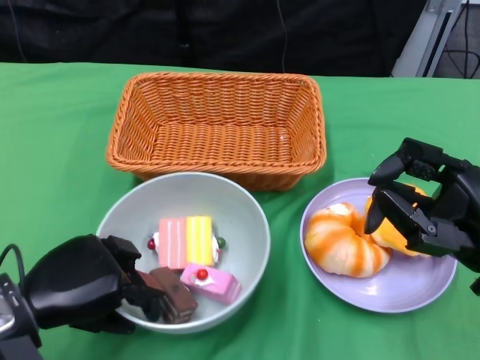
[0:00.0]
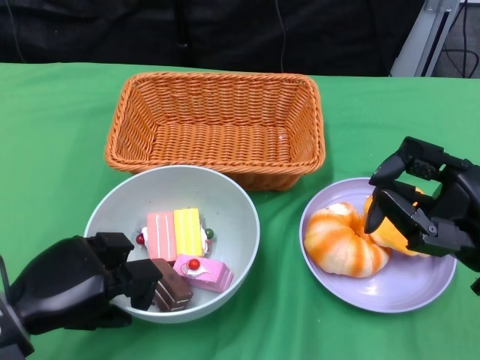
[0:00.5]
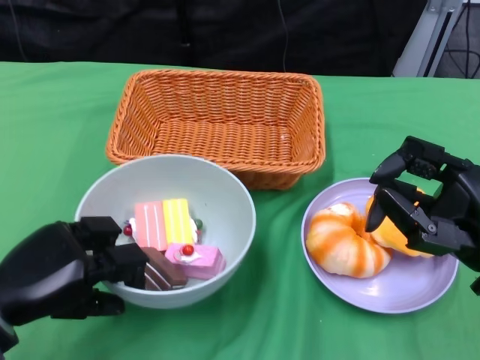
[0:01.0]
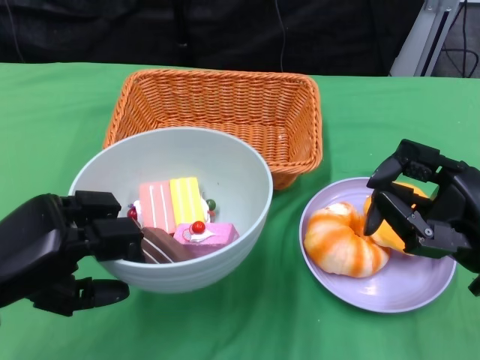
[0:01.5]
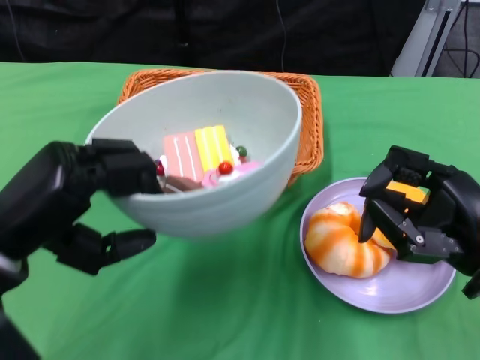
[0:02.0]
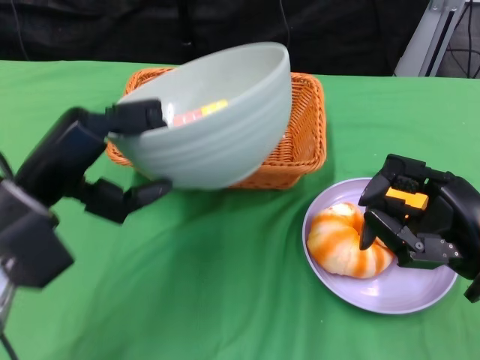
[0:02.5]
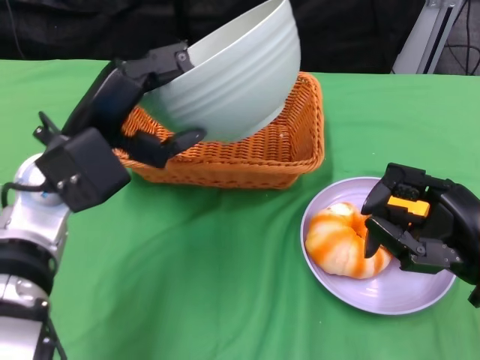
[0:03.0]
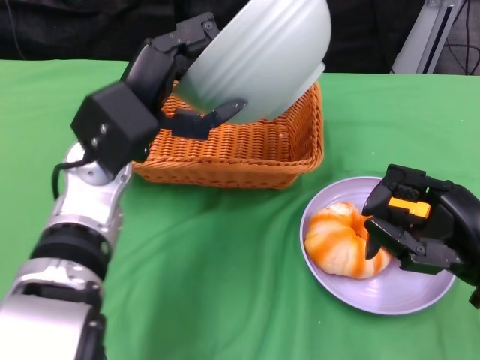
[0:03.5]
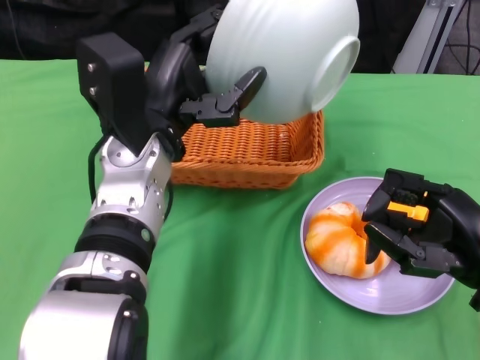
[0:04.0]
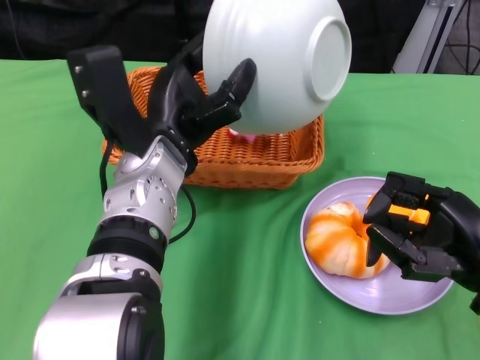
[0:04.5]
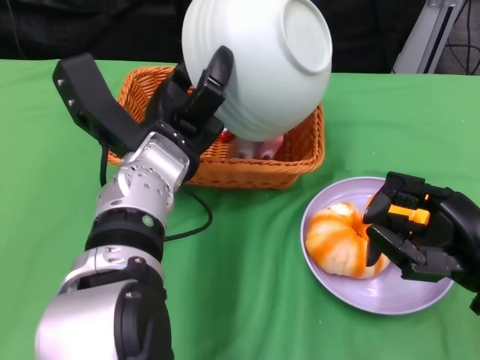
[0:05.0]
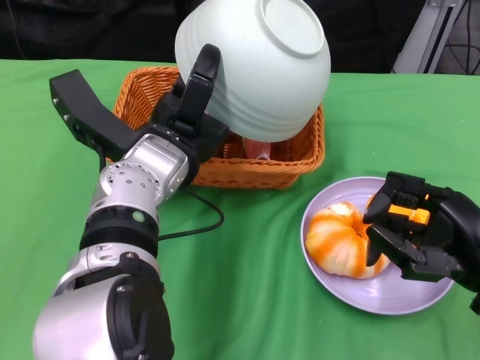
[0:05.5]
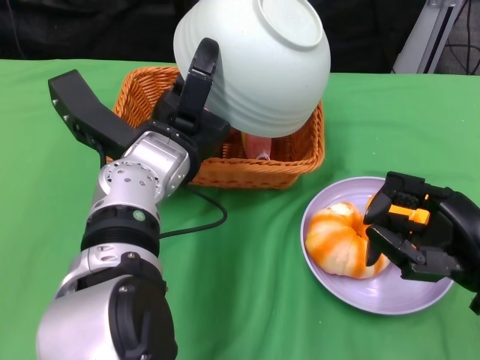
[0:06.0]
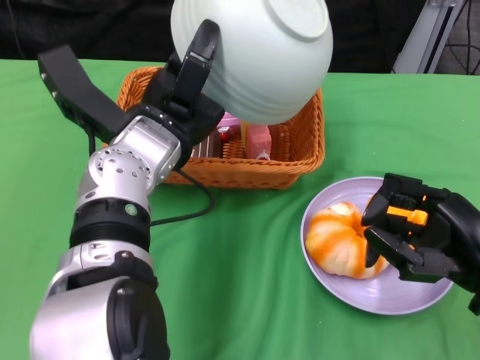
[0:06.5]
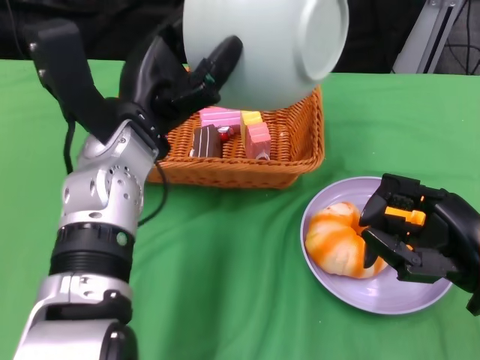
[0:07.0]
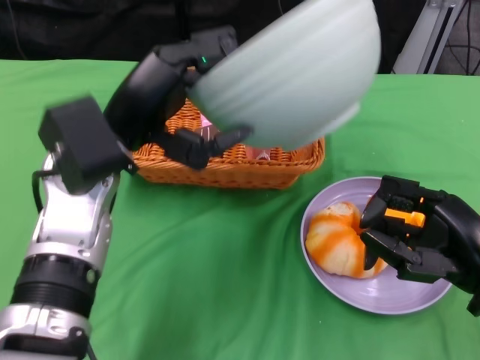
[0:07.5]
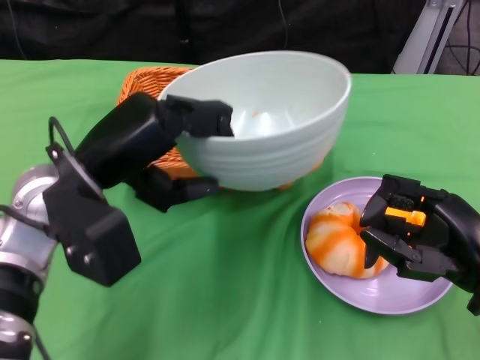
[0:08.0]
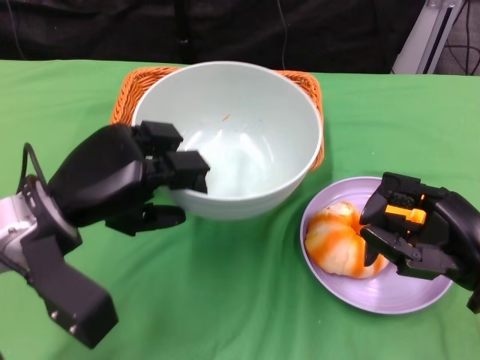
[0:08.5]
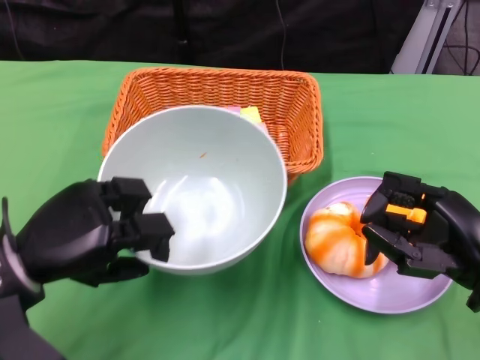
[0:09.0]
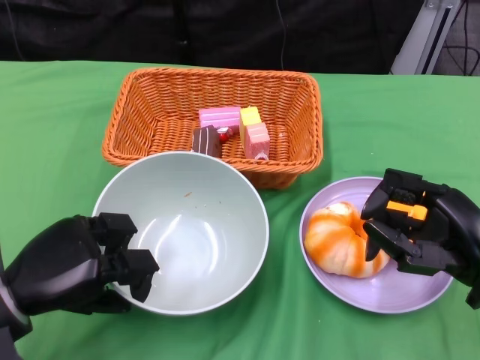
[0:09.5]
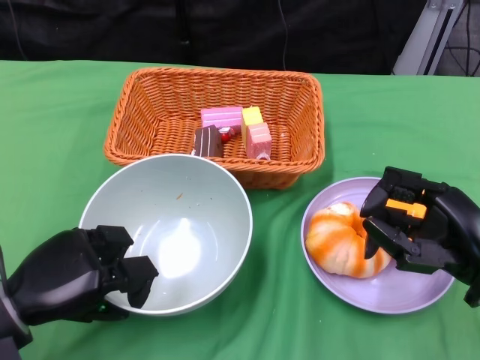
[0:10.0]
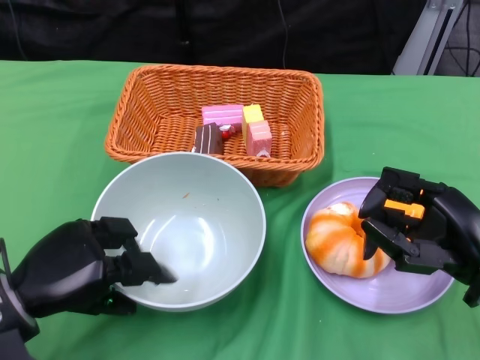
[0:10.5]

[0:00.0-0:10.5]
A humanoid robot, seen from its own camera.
Step, 0:01.0 to 0:06.5: Pour the cake into the basket with the left gripper.
0:00.0 to 0:02.0: The left hand moves upward, some 10 cm.
0:02.0 to 0:04.0: The left hand is displaced to the right and forward by some 15 cm.
0:06.5 to 0:08.5: The left hand travels to the left and backward by about 10 cm.
0:08.5 to 0:10.5: The left hand is displaced downward by approximately 10 cm.

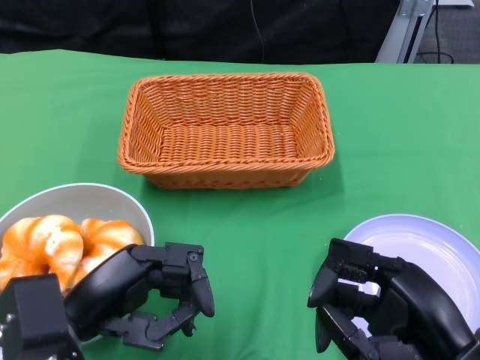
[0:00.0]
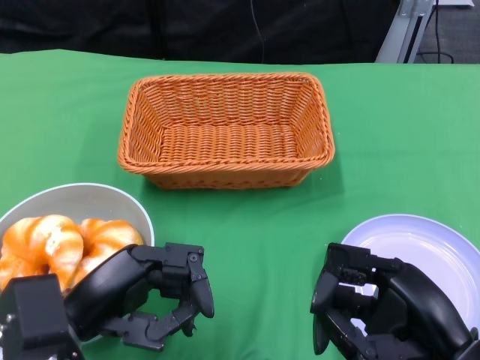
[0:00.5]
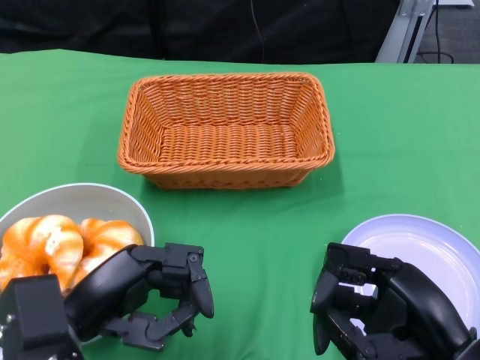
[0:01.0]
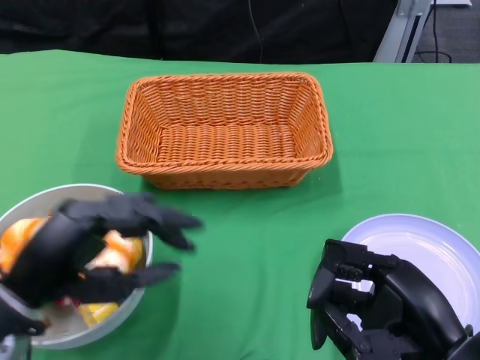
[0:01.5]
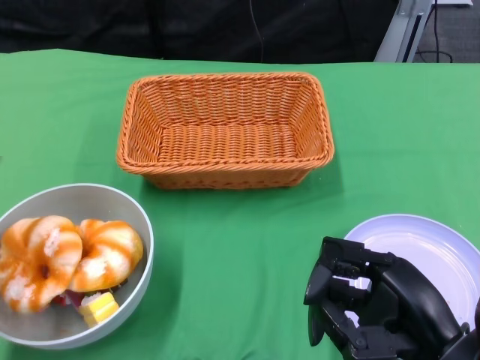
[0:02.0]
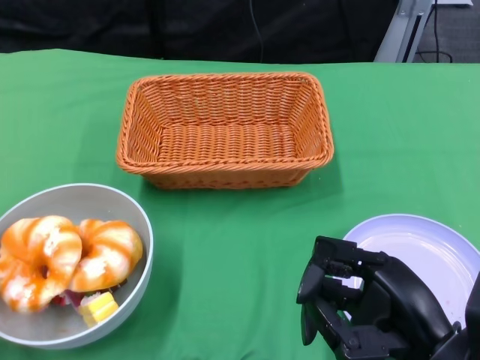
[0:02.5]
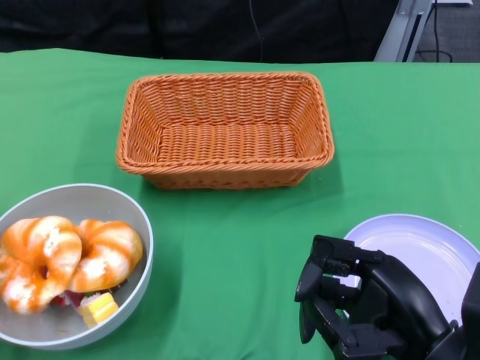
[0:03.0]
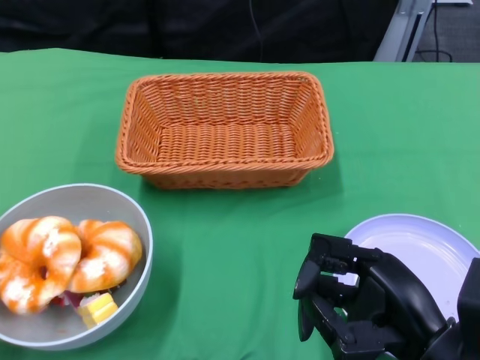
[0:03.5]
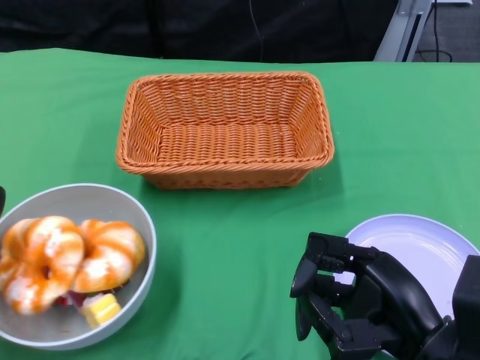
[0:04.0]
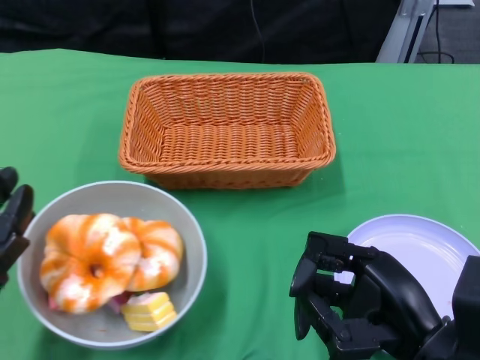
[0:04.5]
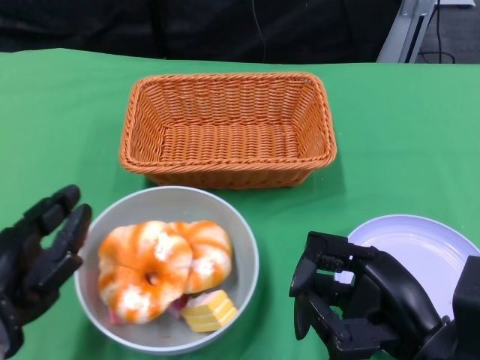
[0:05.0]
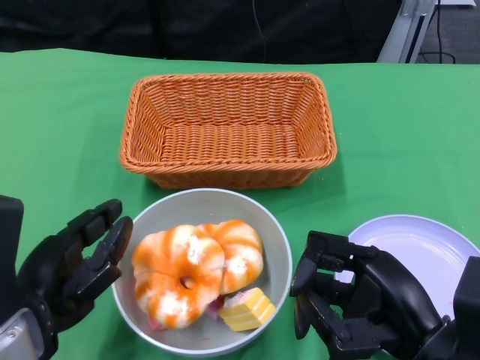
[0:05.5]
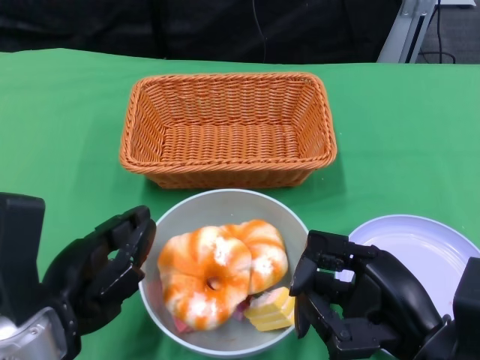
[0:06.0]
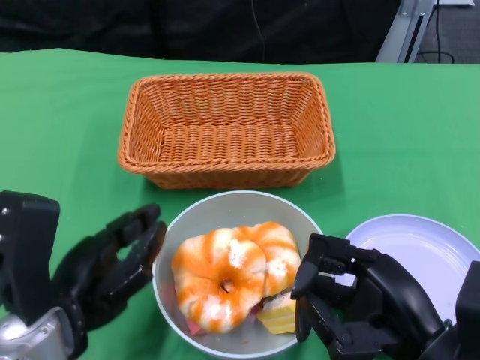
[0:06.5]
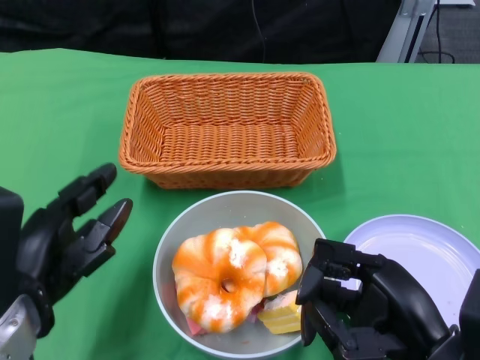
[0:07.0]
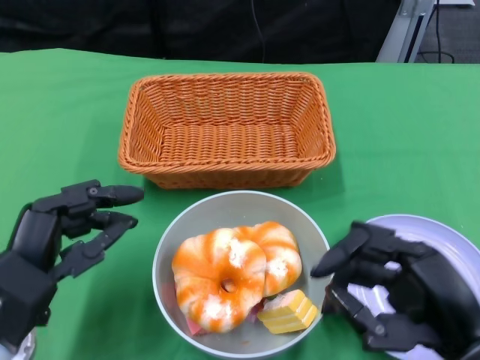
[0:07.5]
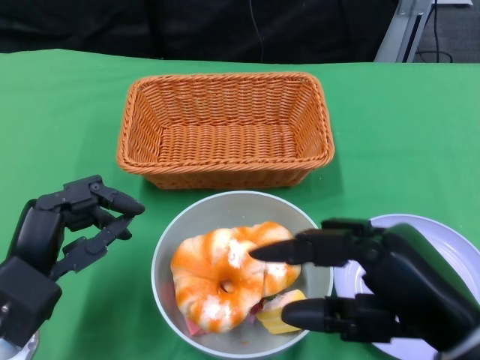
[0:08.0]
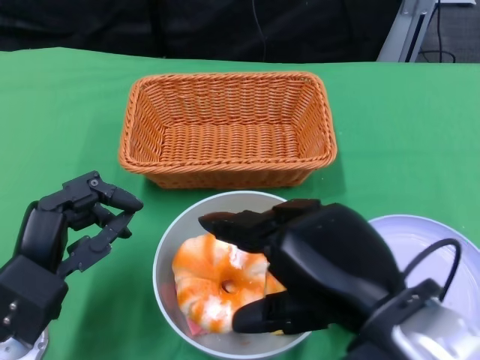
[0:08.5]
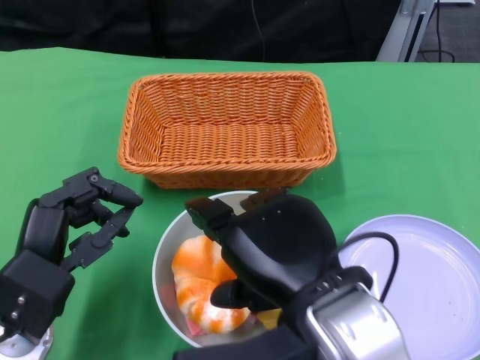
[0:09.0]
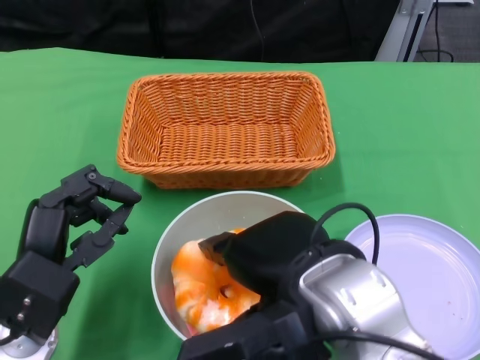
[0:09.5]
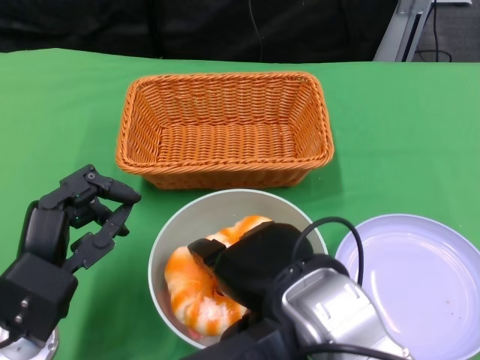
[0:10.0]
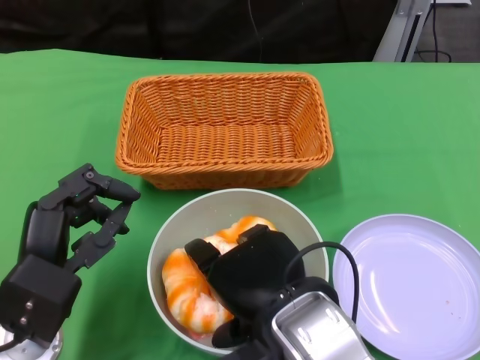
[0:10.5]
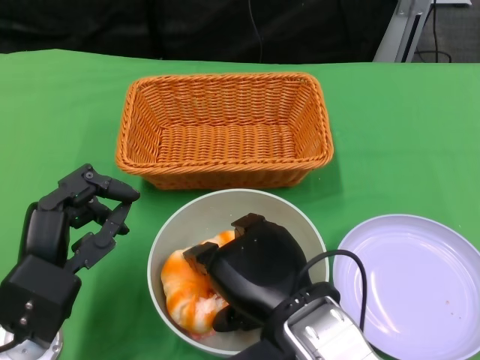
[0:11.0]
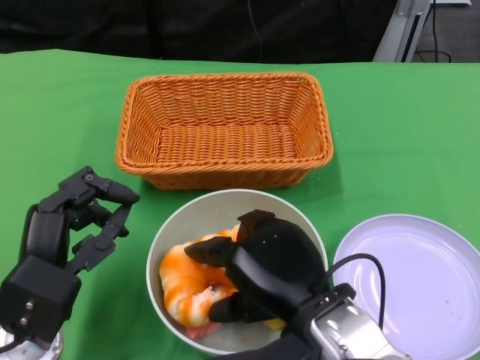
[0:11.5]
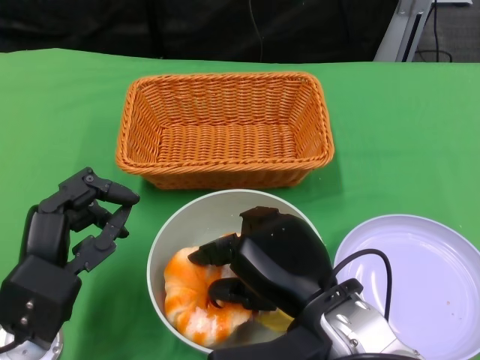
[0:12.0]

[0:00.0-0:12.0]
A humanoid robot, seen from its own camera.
Step, 0:00.0 to 0:06.0: Push the bowl to the center of the table using the left gripper.
0:04.0 to 0:06.0: The left hand shifts approximately 10 cm to the right.
0:06.0 to 0:08.0: The right hand shifts roughly 5 cm upward; the left hand shifts by roughly 5 cm.
0:08.0 to 0:10.0: The right hand is displaced to the left by approximately 10 cm.
0:10.0 to 0:12.0: The right hand is displaced downward by about 5 cm.

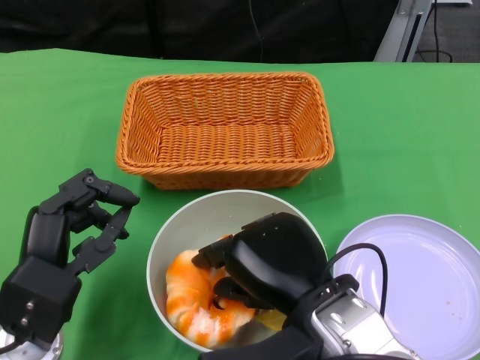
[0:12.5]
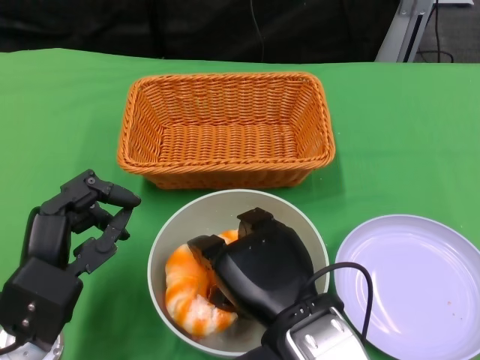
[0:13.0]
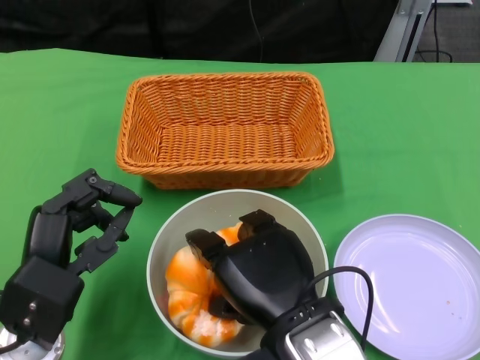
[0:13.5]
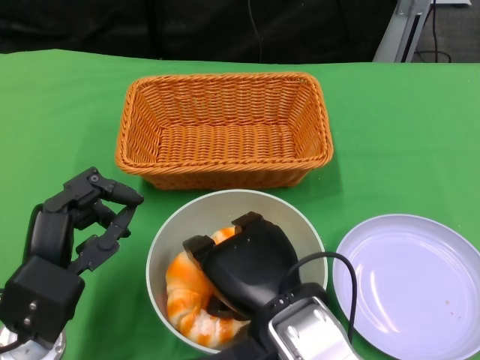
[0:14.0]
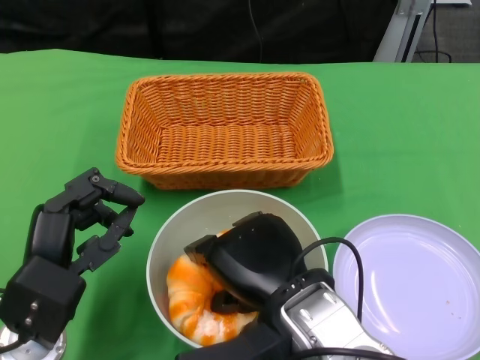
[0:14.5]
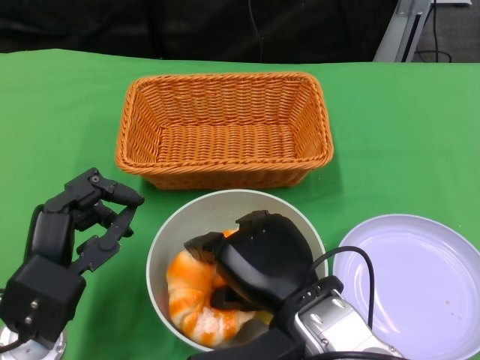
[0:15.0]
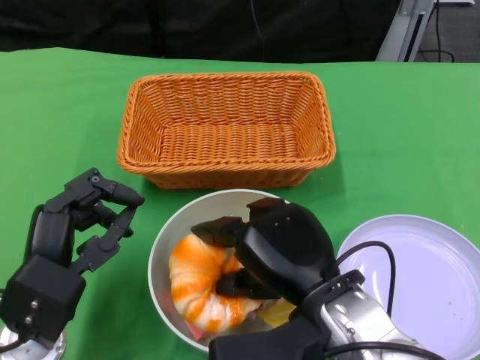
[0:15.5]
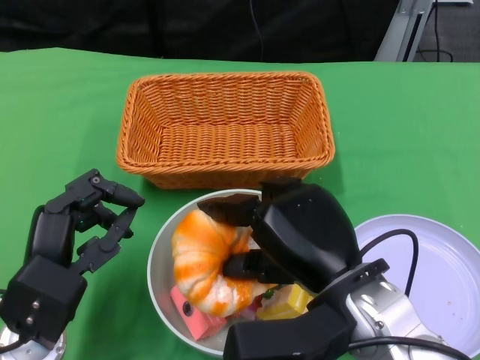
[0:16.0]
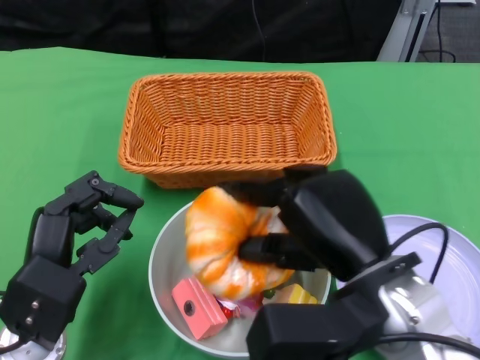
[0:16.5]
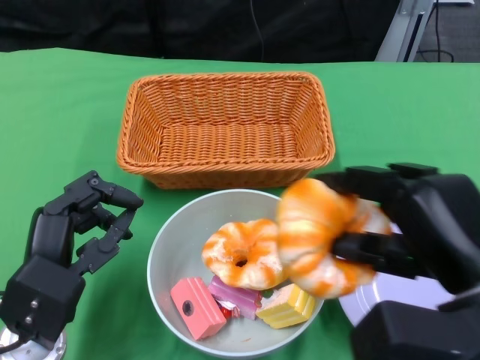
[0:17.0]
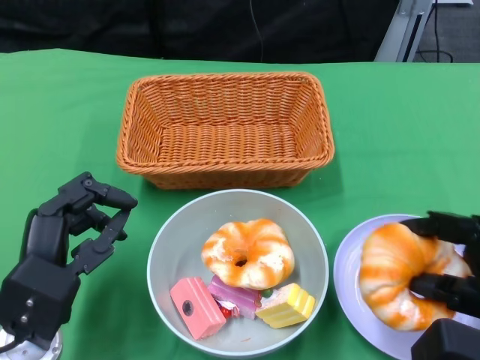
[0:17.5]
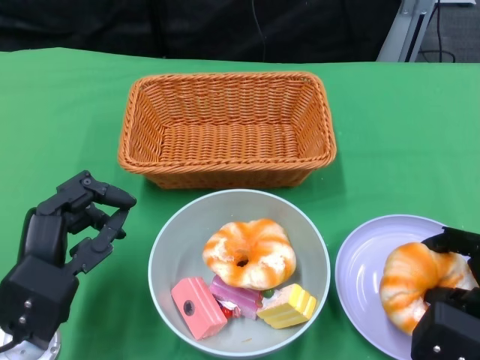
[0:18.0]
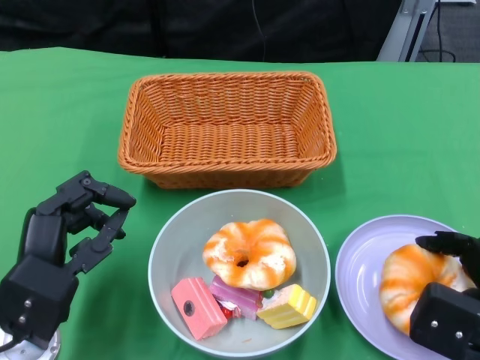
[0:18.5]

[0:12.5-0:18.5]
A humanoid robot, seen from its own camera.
0:12.5 to 0:14.5: The hands move only a little.
0:14.5 to 0:16.5: The right hand is displaced to the right by some 5 cm.
0:16.5 to 0:18.5: The right hand goes about 15 cm to the right and downward.
